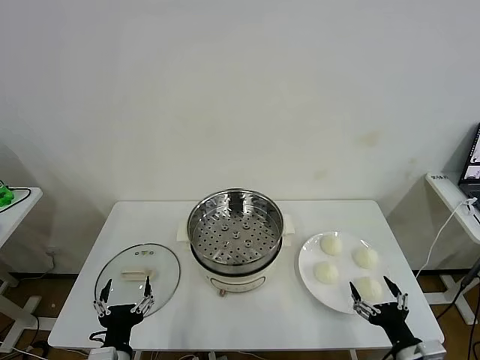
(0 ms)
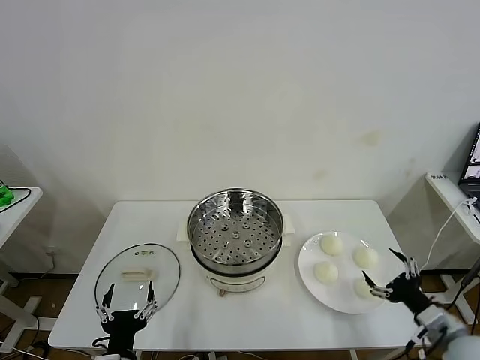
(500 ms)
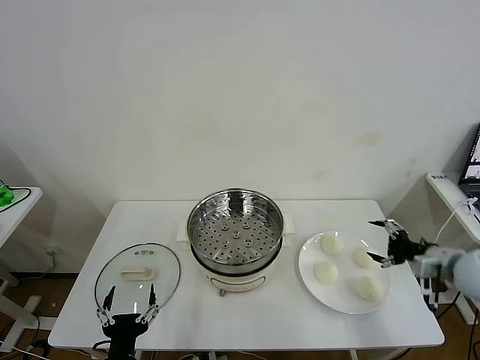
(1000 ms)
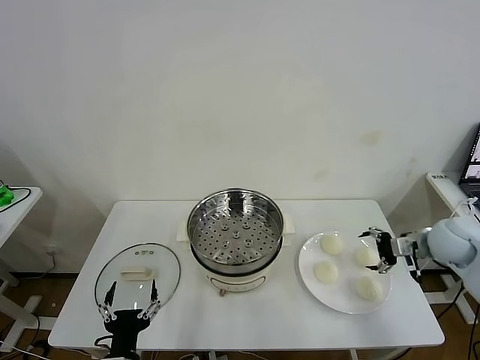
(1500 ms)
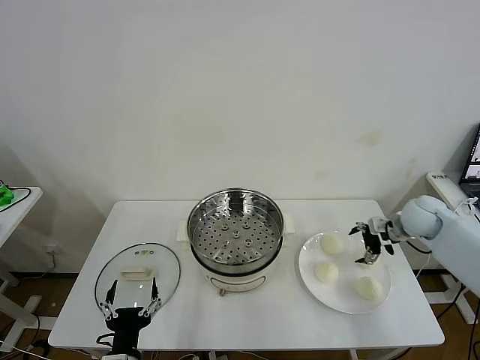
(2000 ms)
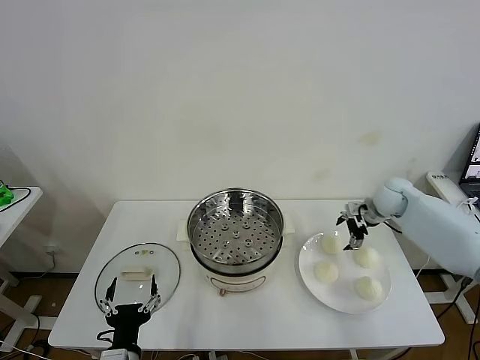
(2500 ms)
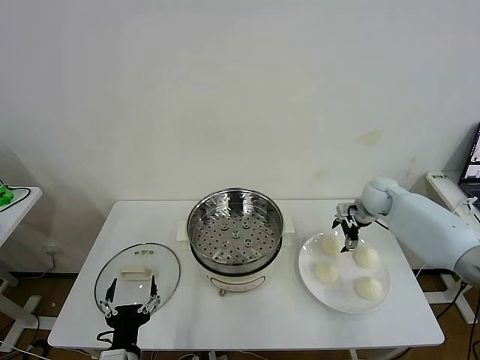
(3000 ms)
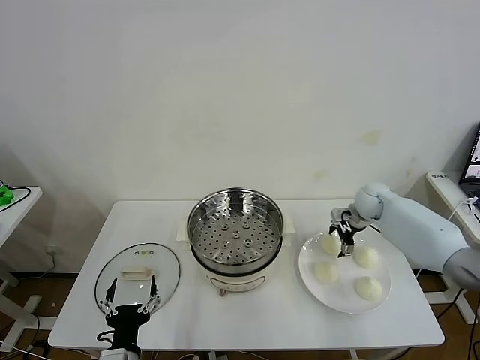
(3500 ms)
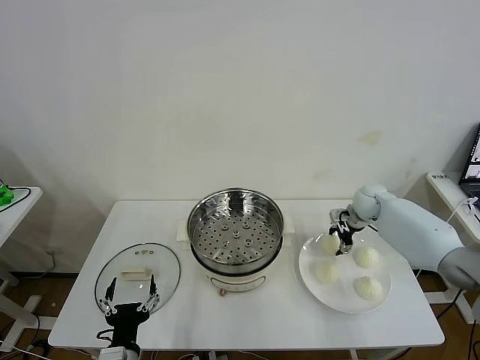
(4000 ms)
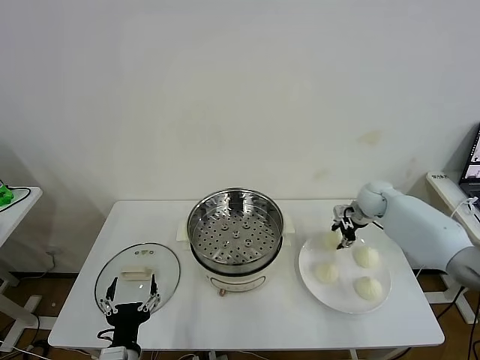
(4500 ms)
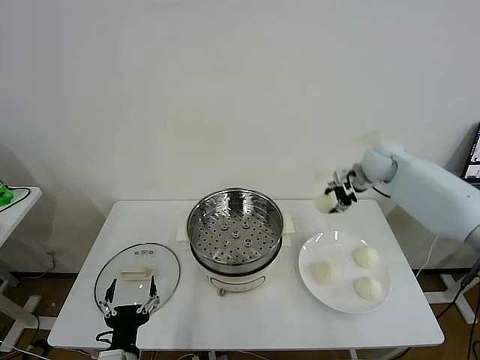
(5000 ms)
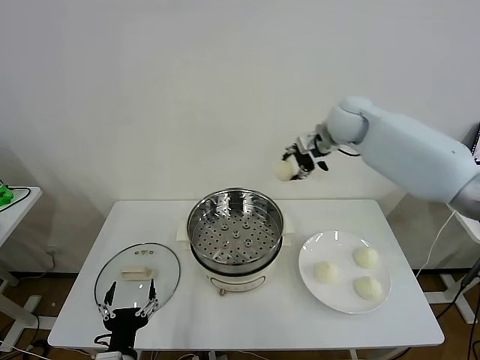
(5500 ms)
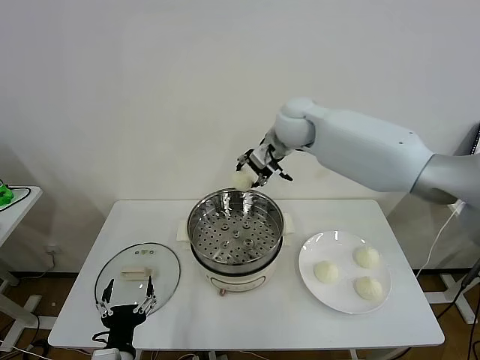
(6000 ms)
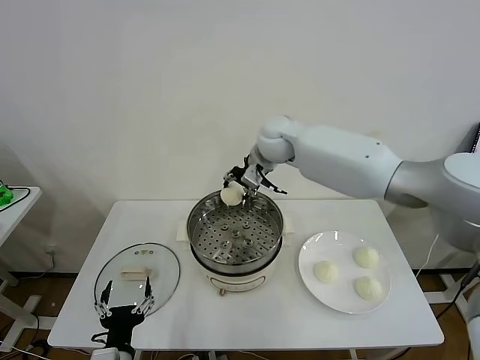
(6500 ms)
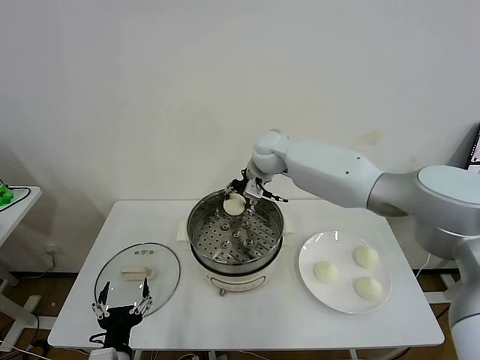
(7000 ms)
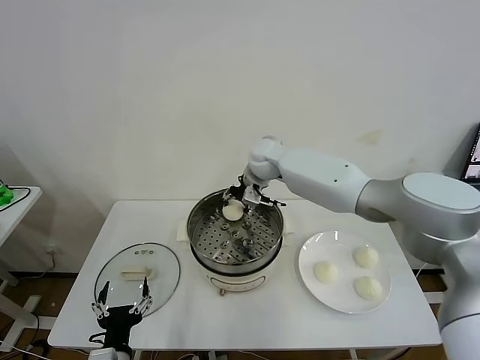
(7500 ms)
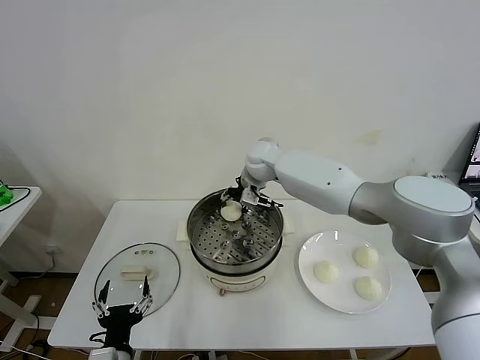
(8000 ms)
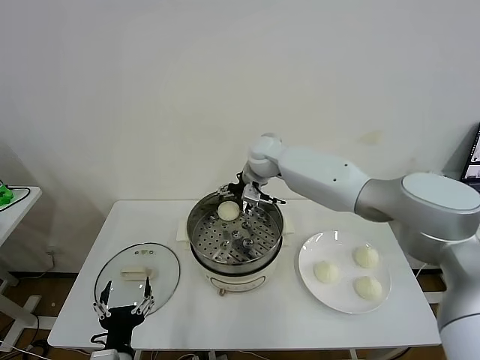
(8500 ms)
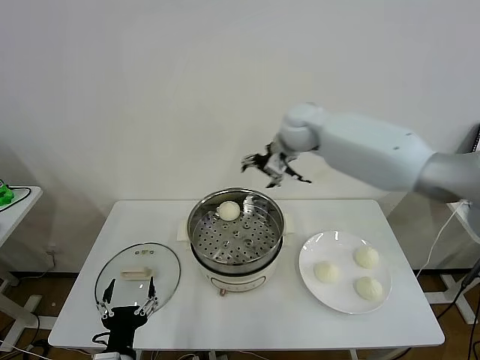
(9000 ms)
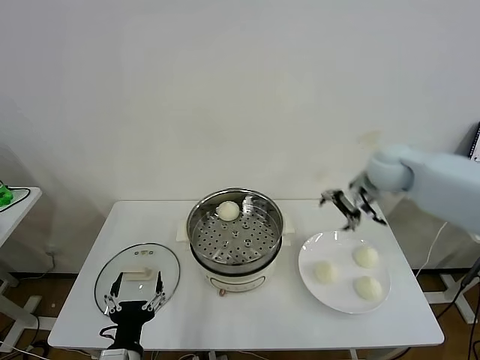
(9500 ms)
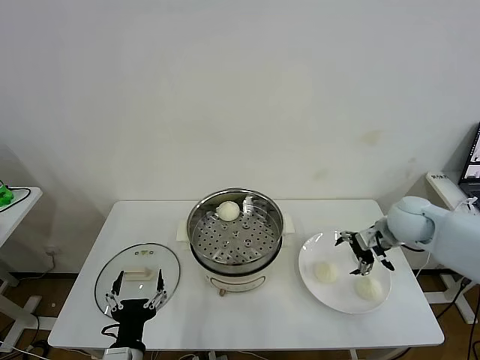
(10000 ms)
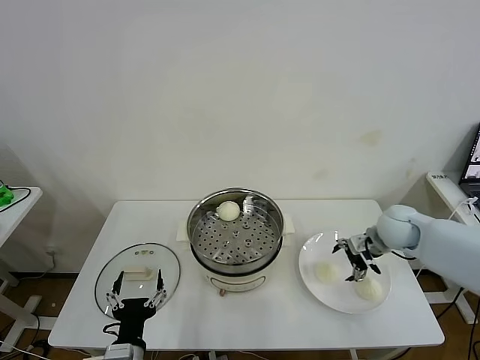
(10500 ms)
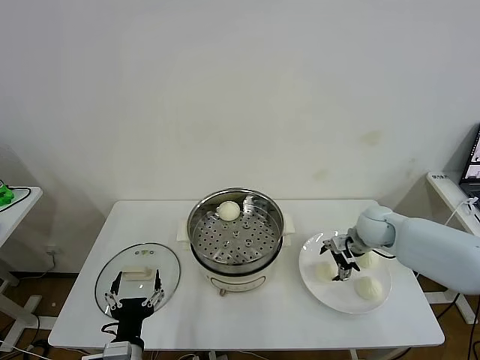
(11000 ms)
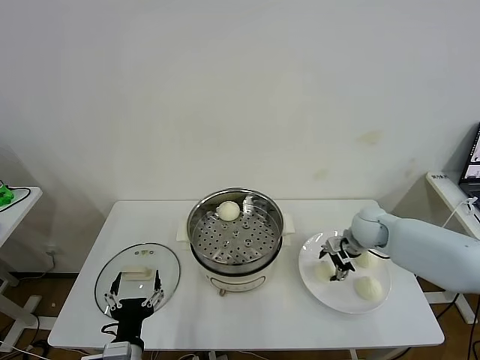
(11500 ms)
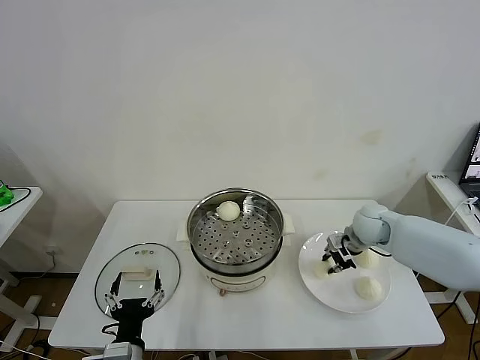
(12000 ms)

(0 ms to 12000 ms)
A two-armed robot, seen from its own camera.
Task of the whole recording: take steamed baozi put them in steamer then cover it.
Step, 0 ms - 4000 ms: Grasp the baozi in the plate with right gripper.
Step, 4500 ms - 8000 ms: Place the baozi on the steamer with right gripper.
2000 ms - 4000 ms: The right gripper moves forward and to the left, about 10 cm, and closes its fingers.
4000 ms - 6000 ms: The right gripper moves to the left and upward, some 35 cm.
6000 ms - 8000 ms: The right gripper heads downward, covering about 10 cm.
8000 ms - 10000 ms: The right gripper shifts about 35 cm to the right and backward, and opens up.
10000 ms - 12000 ms: The right gripper heads downward, covering some 5 cm, and closes.

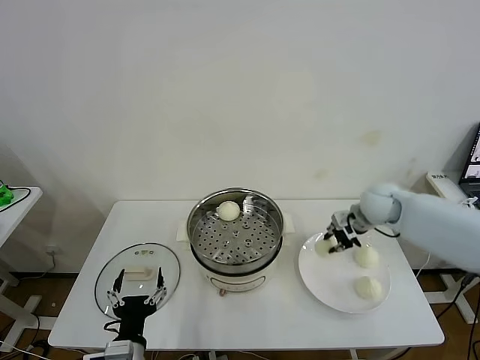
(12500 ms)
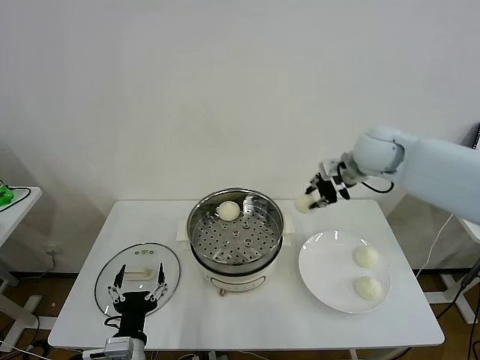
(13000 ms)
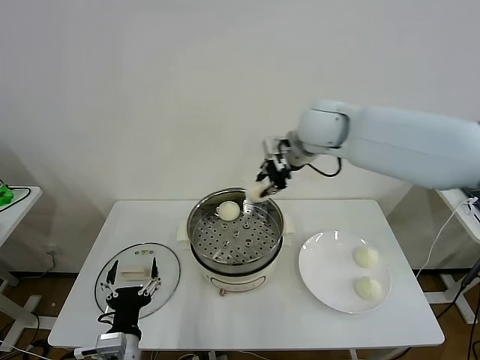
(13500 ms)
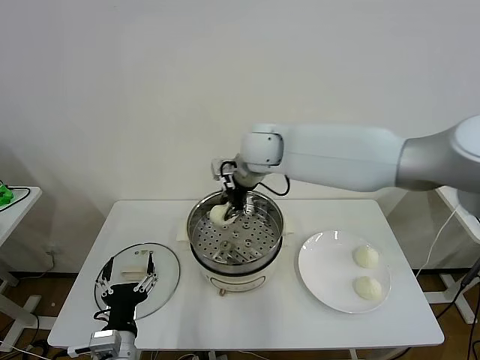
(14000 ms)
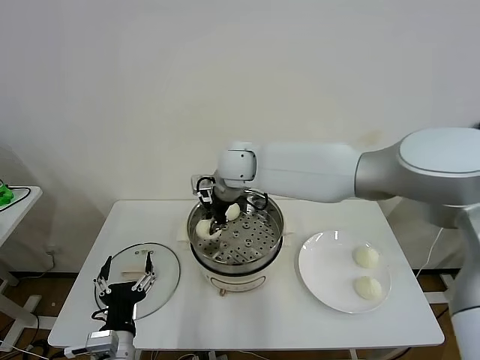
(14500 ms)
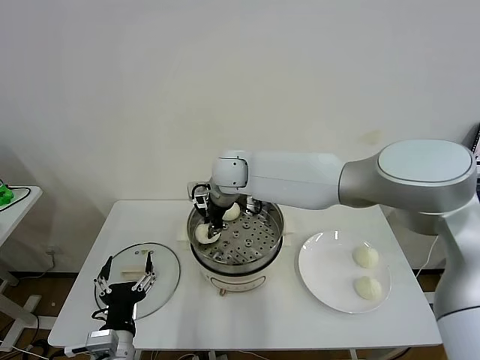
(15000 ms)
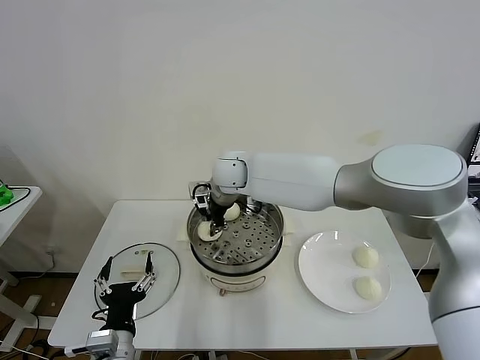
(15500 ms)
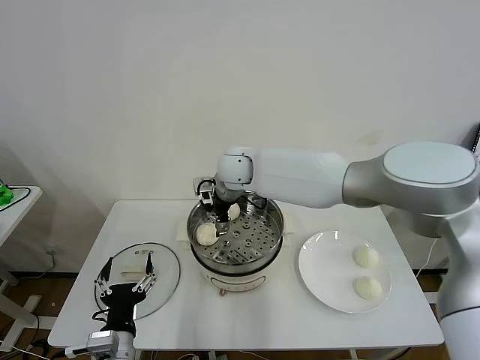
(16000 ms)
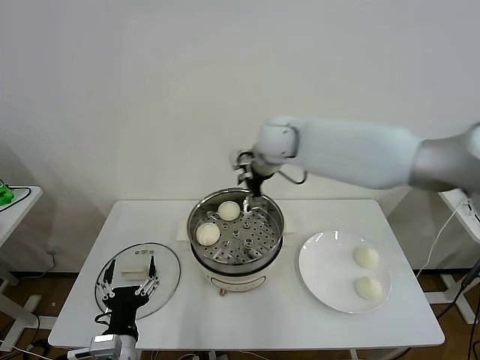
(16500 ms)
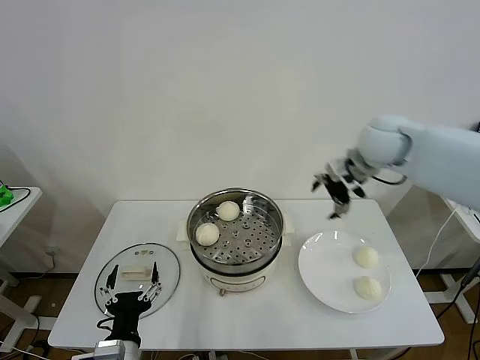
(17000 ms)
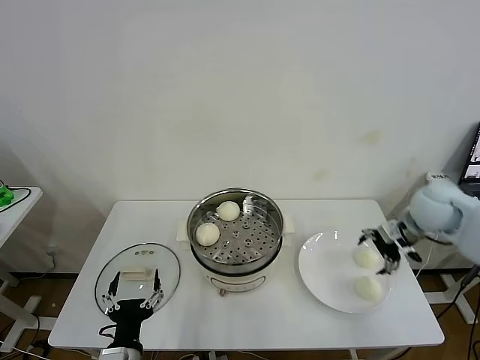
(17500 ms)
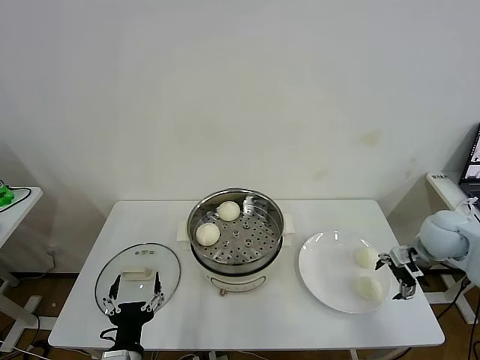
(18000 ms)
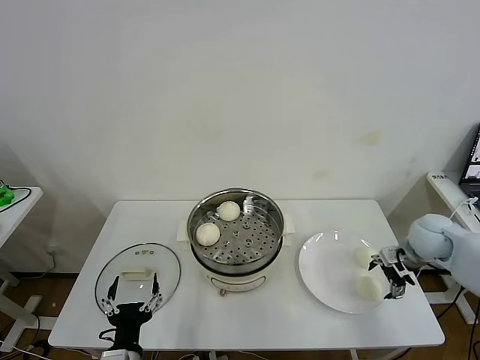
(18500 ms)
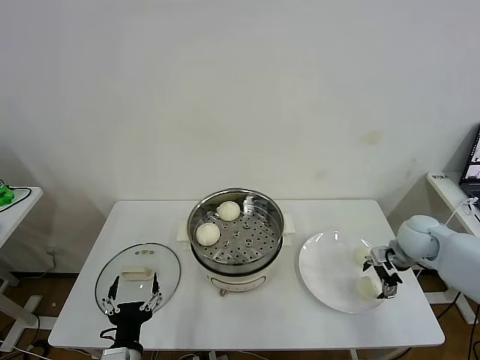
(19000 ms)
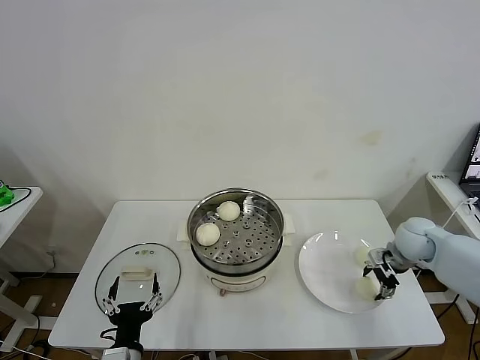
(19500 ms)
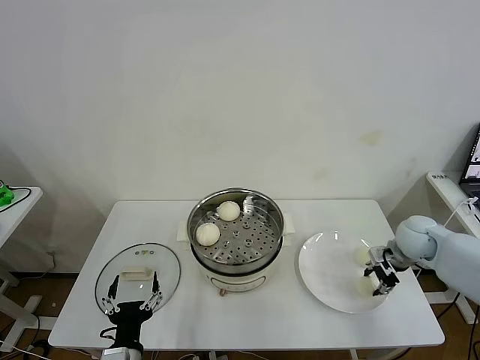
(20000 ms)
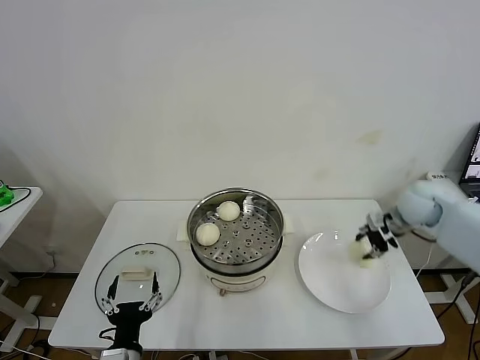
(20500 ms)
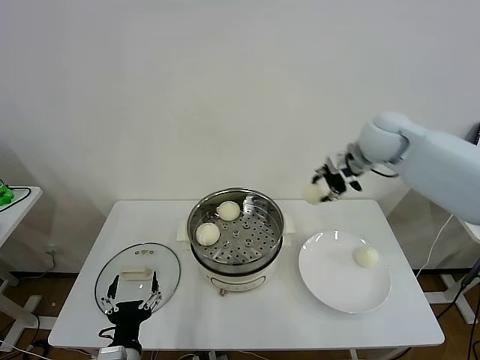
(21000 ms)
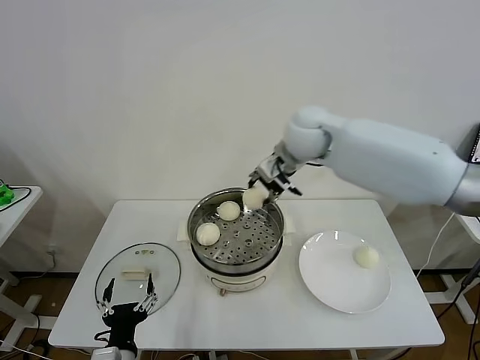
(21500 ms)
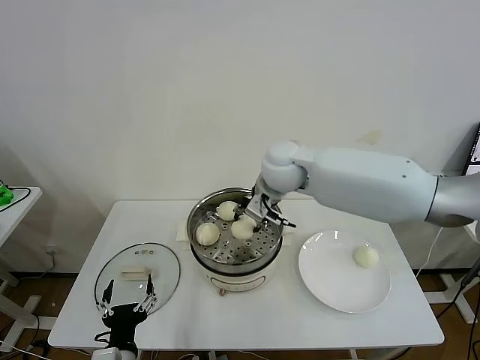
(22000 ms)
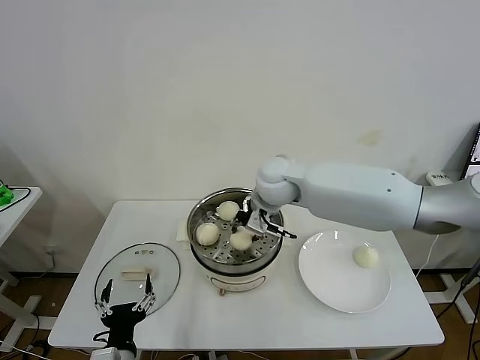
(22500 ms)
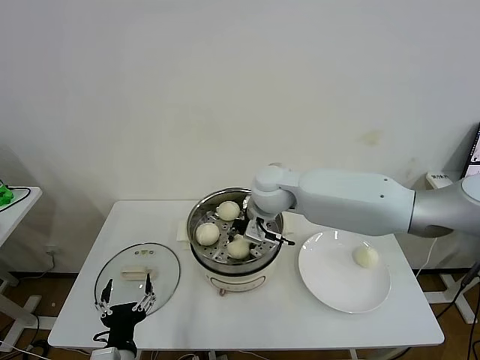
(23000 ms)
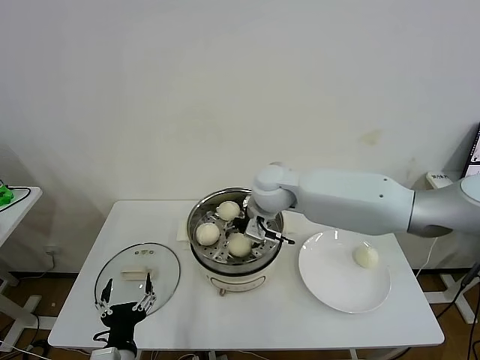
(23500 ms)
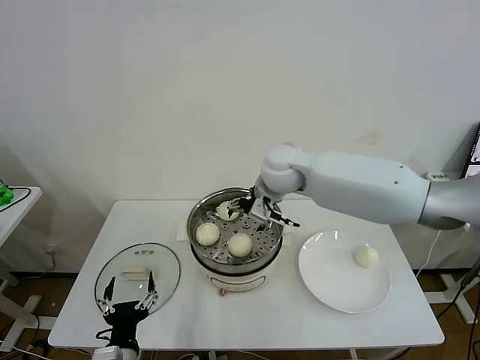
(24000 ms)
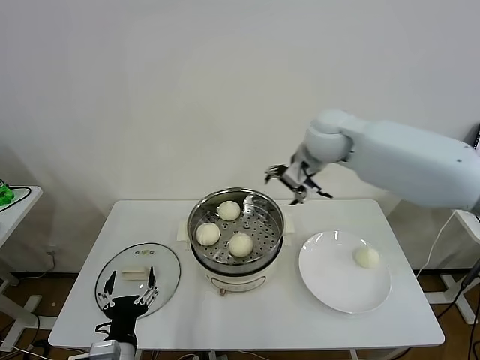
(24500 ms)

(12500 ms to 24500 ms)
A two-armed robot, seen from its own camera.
Task of the whole recording: take steamed baozi put them in steamer then cover it.
Step, 12500 ms - 15500 ms: Place the baozi on the steamer with right gripper.
Step, 16000 ms - 20000 ms: Grasp the baozi in the plate with right gripper.
Step, 20500 ms - 23500 ms: Place the baozi on the steamer with right gripper.
12500 ms - 14500 ms: The right gripper heads to the left, covering approximately 35 cm.
14500 ms - 16500 ms: The right gripper heads to the right and upward, covering roughly 15 cm, and opens.
16500 ms - 18500 ms: The right gripper moves to the right and downward, roughly 35 cm.
18500 ms - 20500 ms: The right gripper shifts about 10 cm upward and forward, and closes up.
20500 ms - 22500 ms: The right gripper heads to the left, covering about 30 cm.
22500 ms - 24500 ms: The right gripper goes approximately 15 cm to the right and upward, and opens its fingers.

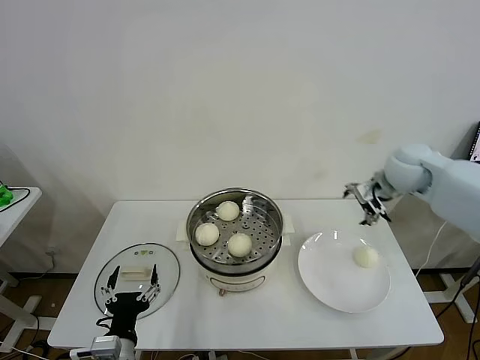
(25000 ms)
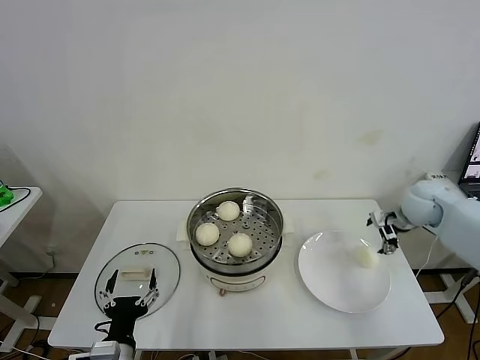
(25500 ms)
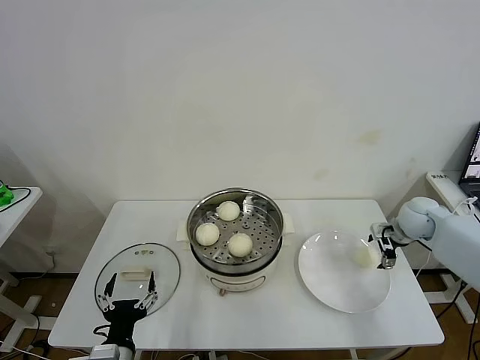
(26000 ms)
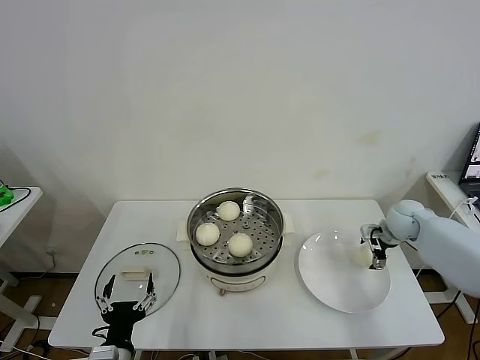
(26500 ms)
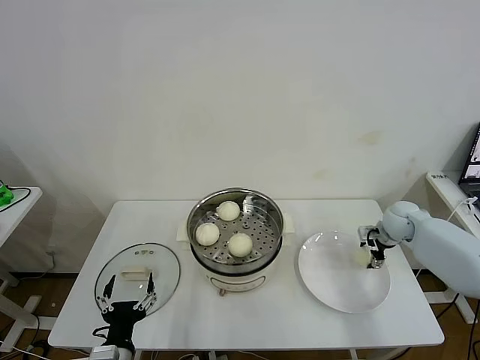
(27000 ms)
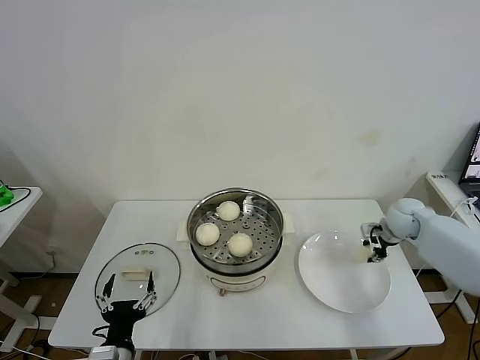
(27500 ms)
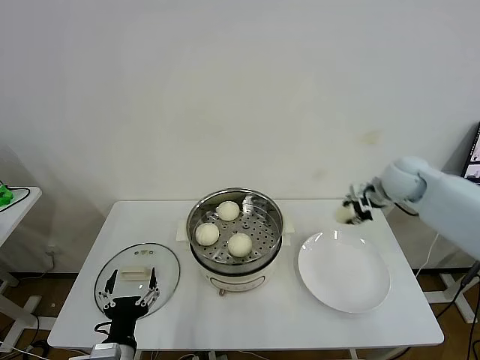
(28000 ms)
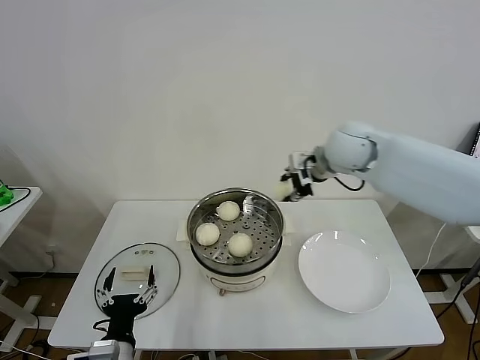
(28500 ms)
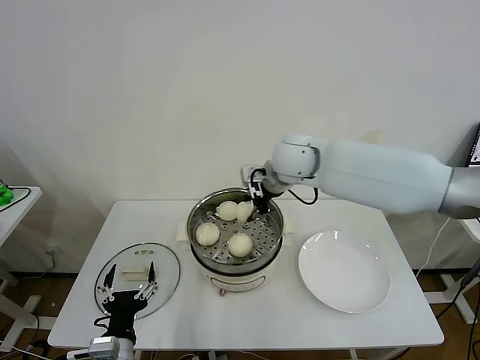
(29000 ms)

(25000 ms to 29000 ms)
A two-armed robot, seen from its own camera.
Task of the whole recording: take steamed baozi put them in steamer then cover it.
Step, 25000 ms - 27500 ms: Grasp the baozi in the plate with right gripper.
25000 ms - 27000 ms: The right gripper moves downward, some 15 cm.
27000 ms - 29000 ms: The right gripper moves to the left and upward, roughly 35 cm, and closes.
